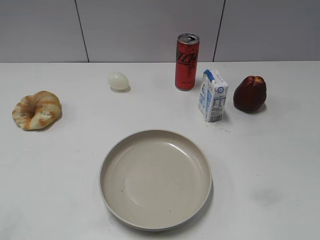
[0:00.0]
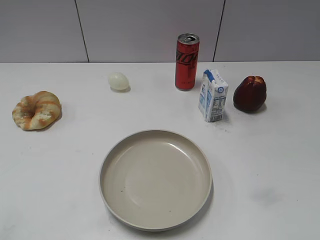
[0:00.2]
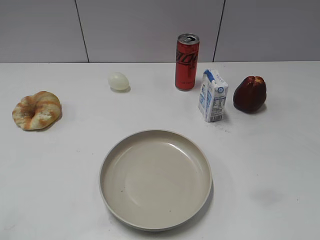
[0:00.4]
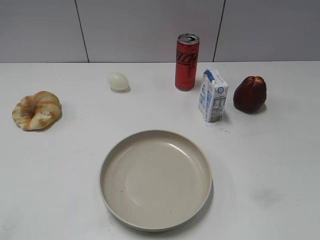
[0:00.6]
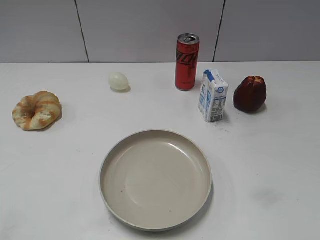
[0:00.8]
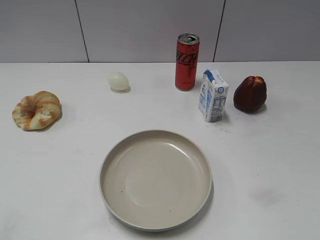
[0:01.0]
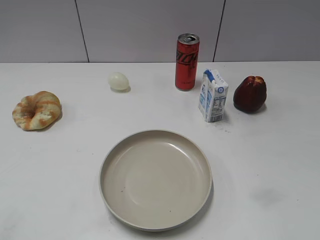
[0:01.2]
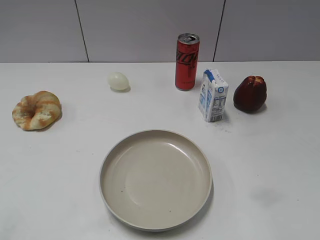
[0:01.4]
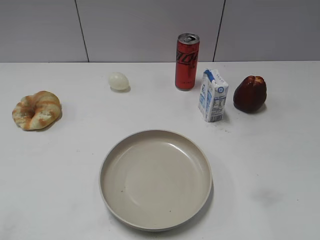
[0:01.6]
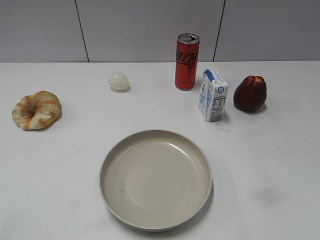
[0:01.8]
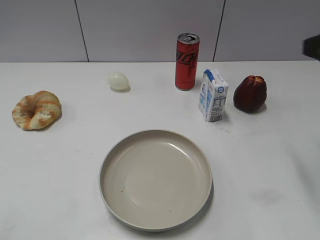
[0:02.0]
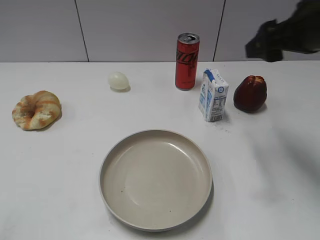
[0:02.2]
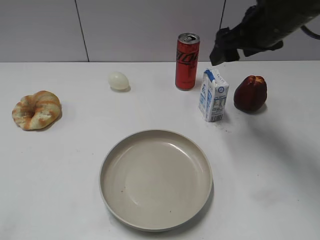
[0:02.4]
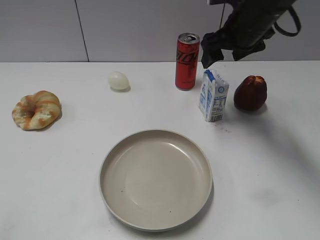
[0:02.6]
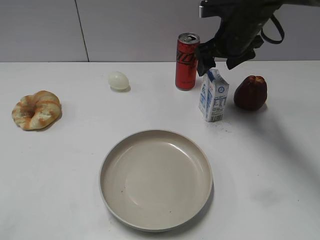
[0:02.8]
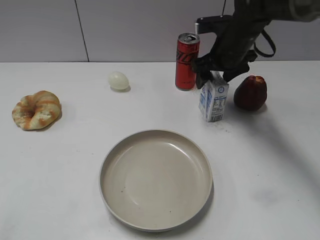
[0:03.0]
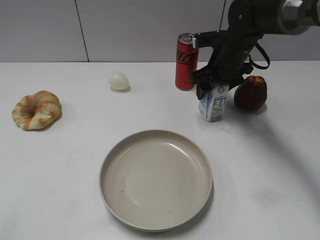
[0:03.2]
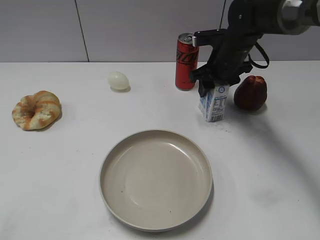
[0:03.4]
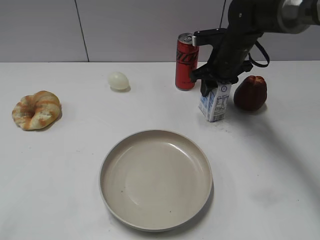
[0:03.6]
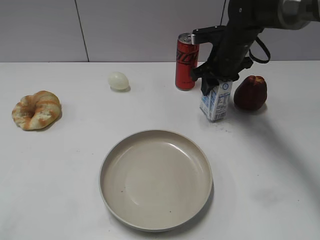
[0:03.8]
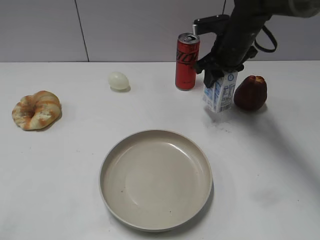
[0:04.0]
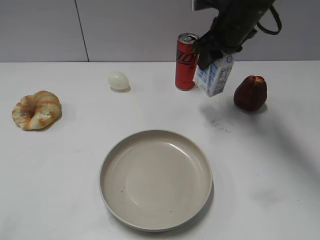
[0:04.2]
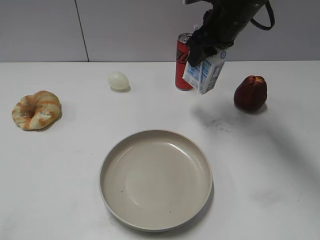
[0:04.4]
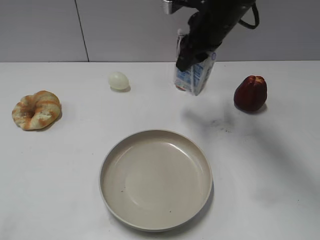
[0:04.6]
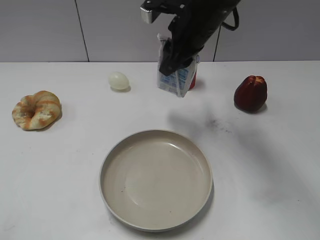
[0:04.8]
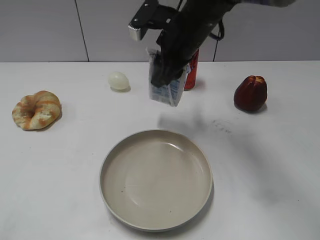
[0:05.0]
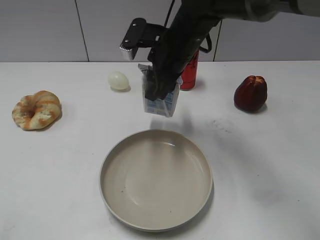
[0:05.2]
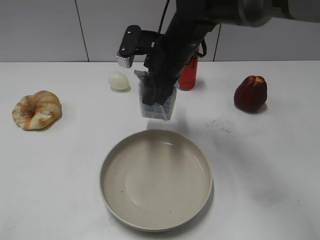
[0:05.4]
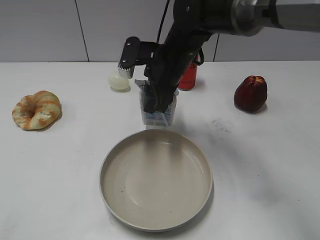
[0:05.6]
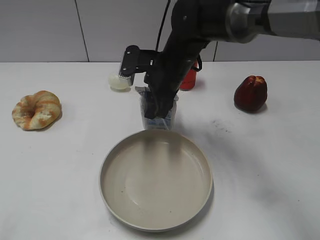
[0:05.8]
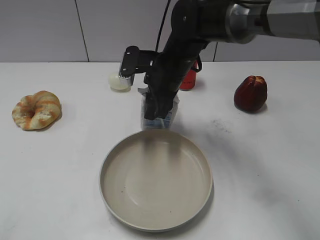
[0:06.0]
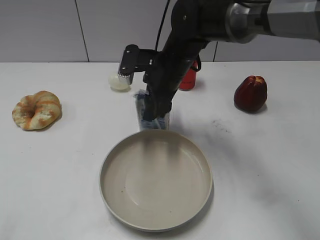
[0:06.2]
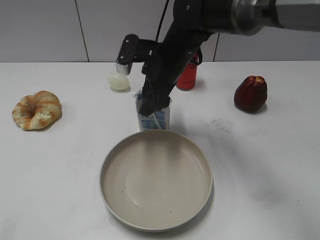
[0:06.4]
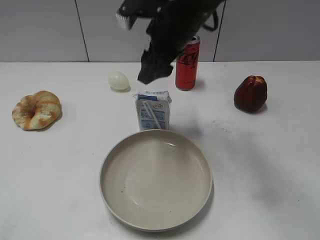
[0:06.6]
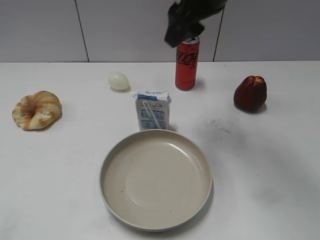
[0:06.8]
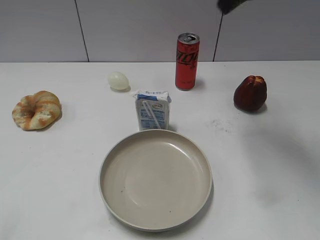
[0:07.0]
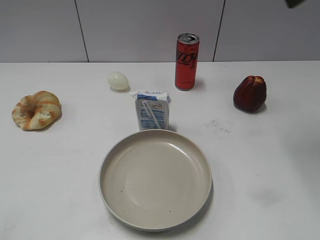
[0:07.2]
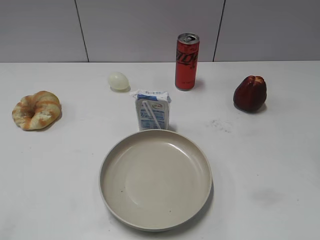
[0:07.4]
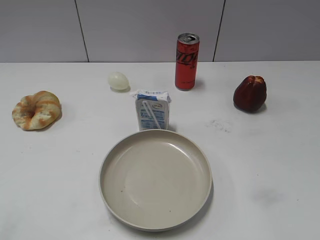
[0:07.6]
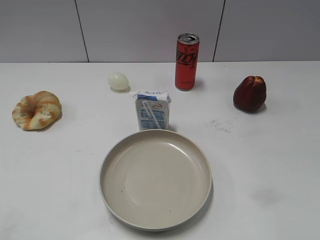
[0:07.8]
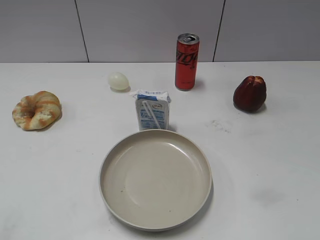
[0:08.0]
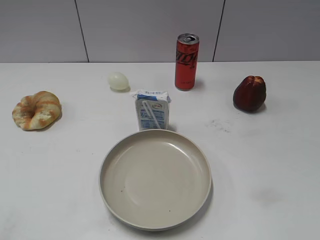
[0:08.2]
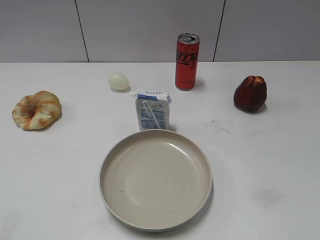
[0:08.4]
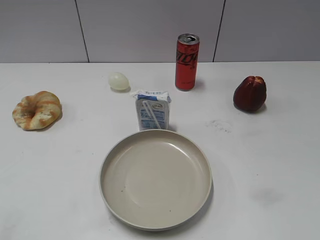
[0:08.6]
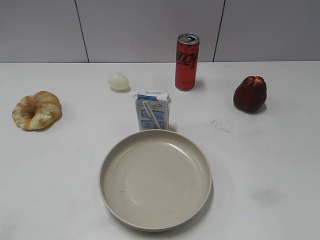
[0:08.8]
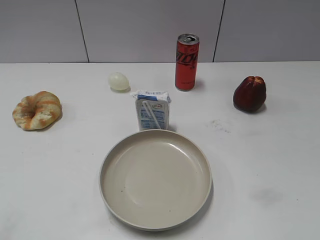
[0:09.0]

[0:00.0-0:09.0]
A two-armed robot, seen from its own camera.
Step, 0:01.0 to 0:03.6: Grasp the milk with right gripper.
Step, 0:03.8 to 0:06.6: Place the milk on the table with right gripper.
0:01.6 to 0:03.0: The right gripper goes roughly 40 cm forward, to the left and downward.
0:03.0 to 0:04.4: The right gripper is displaced upward by approximately 5 cm, and closes up.
0:04.4 to 0:06.0: The right gripper shifts roughly 15 cm to the left and downward.
0:06.0 to 0:07.6: The right gripper is displaced to the right, backward and upward by roughly 40 cm, and opens up.
